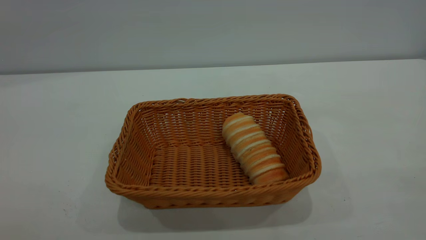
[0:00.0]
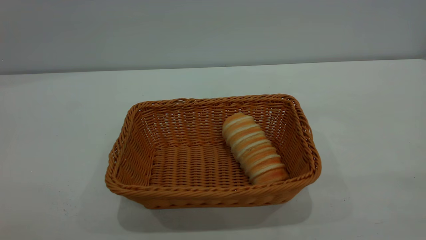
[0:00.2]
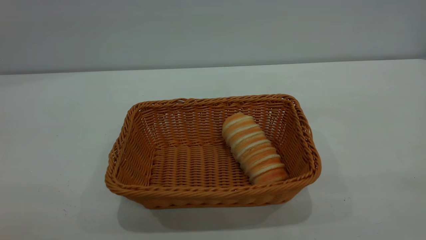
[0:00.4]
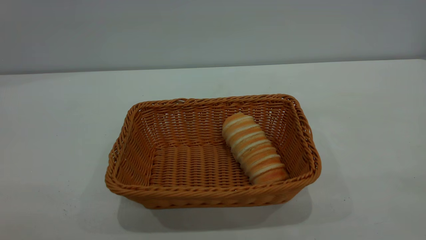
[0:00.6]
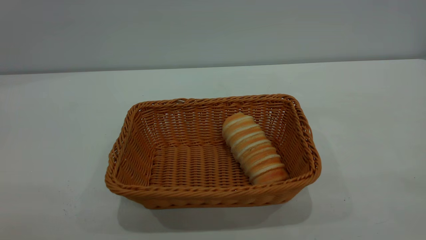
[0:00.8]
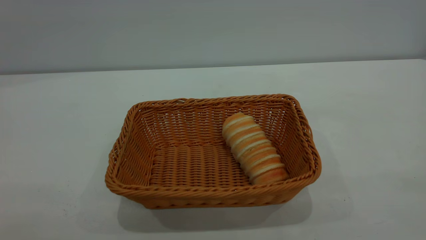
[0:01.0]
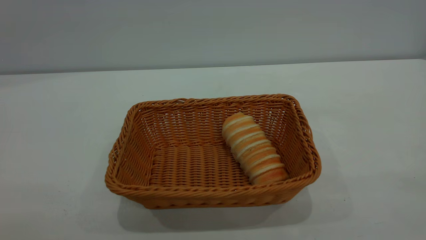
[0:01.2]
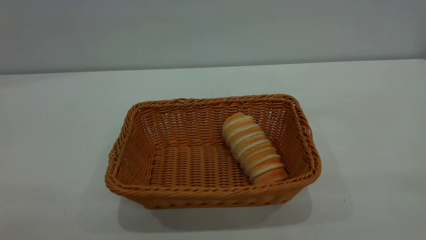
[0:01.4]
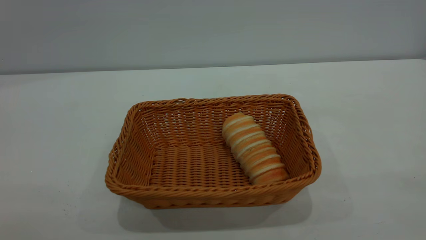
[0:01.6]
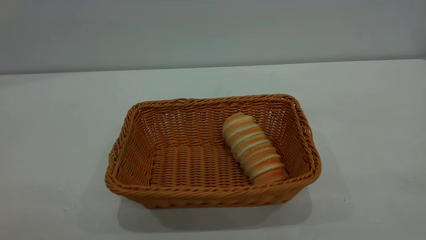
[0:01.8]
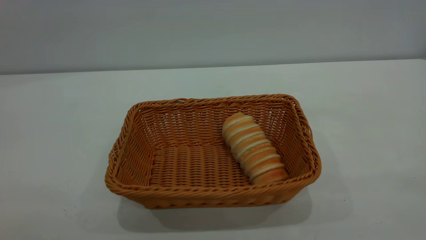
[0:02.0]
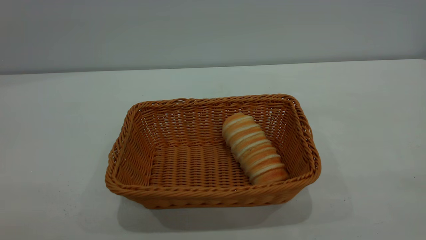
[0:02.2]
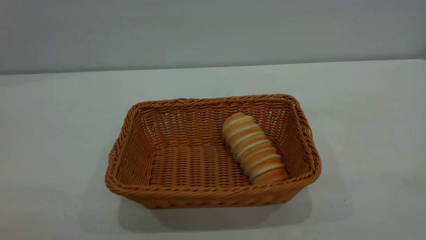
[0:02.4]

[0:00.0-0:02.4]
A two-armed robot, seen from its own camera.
Task of the whole recording: One hand grasps the yellow basket and places it in the middle of the table, while the other hand picks up the long bread and puts it into the yellow basket.
0:01.2 to 0:02.4: The two grippers keep their place.

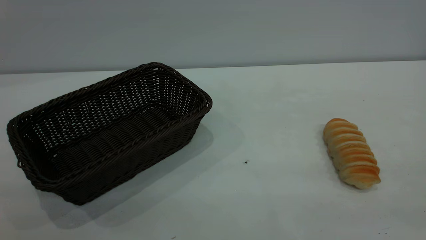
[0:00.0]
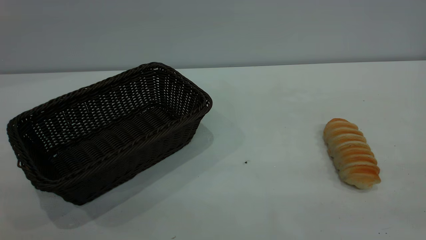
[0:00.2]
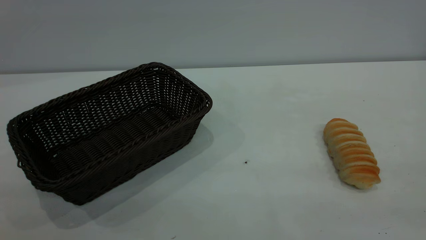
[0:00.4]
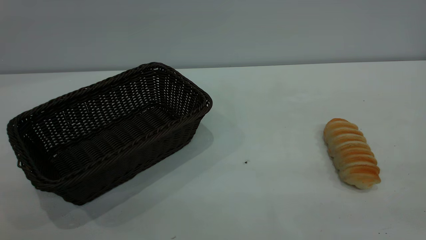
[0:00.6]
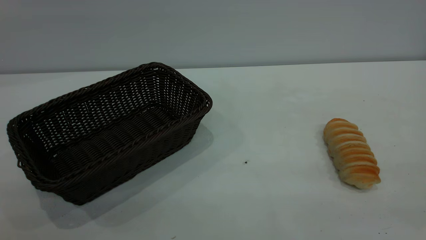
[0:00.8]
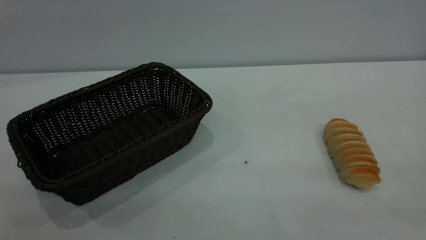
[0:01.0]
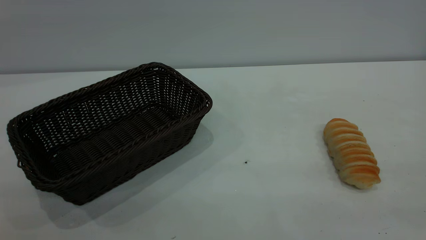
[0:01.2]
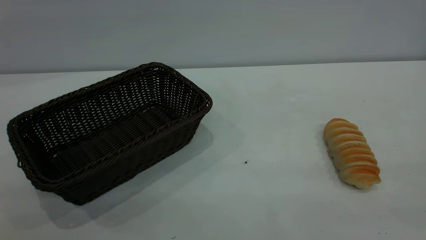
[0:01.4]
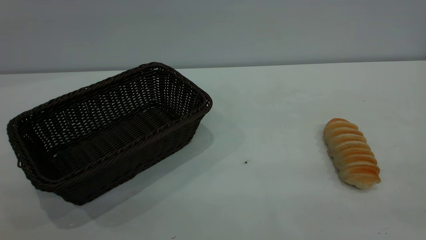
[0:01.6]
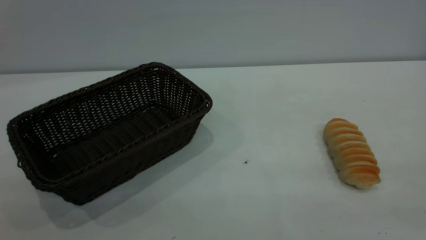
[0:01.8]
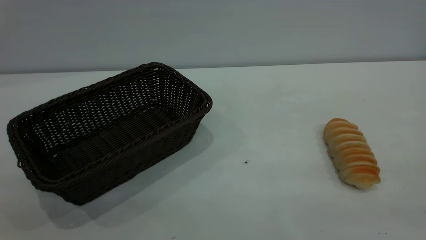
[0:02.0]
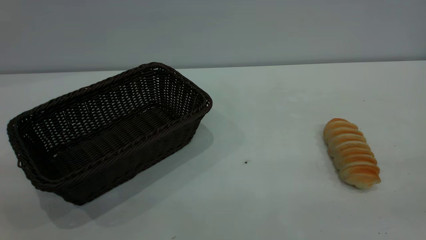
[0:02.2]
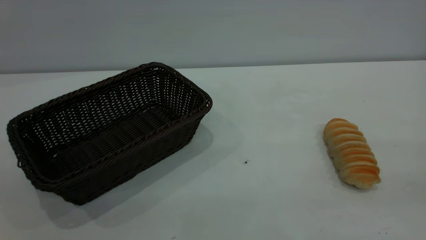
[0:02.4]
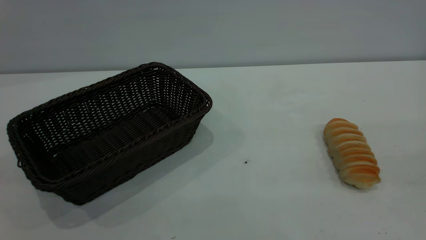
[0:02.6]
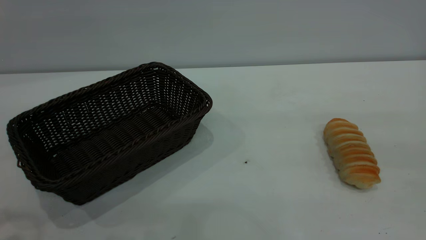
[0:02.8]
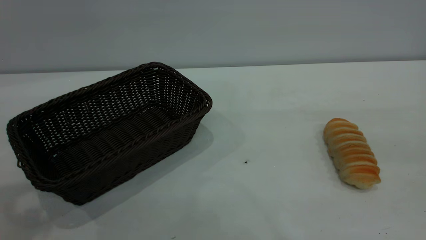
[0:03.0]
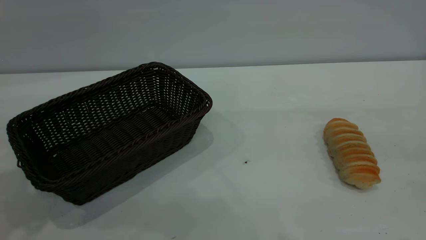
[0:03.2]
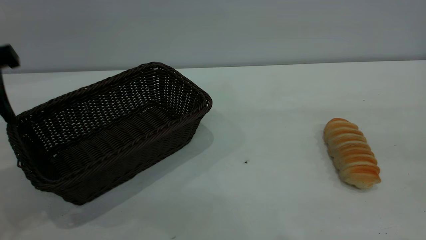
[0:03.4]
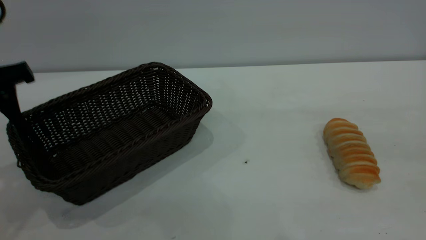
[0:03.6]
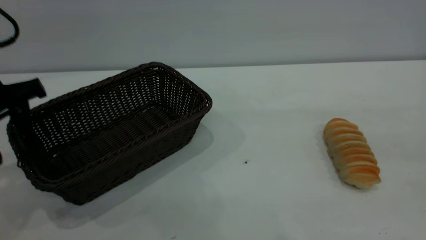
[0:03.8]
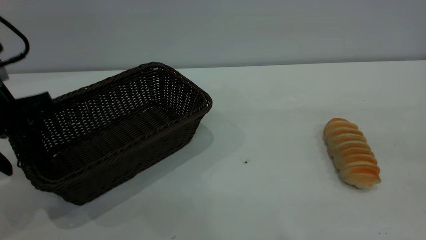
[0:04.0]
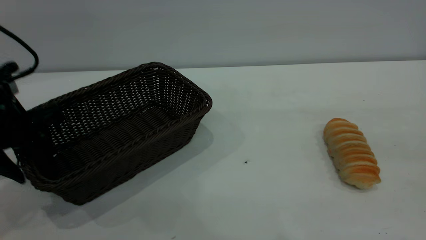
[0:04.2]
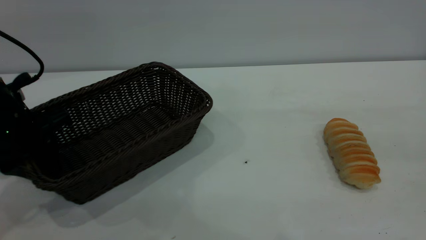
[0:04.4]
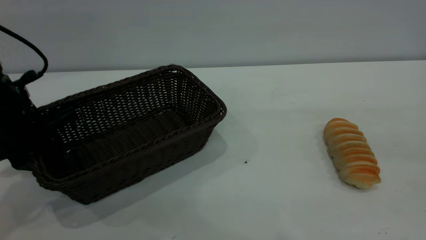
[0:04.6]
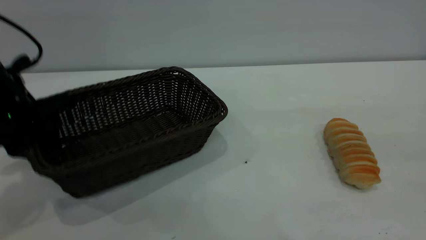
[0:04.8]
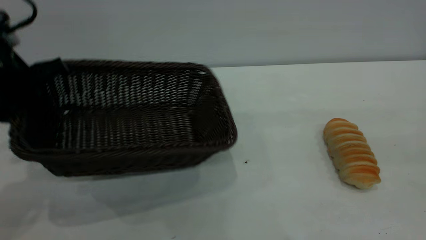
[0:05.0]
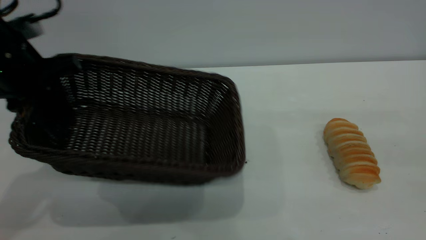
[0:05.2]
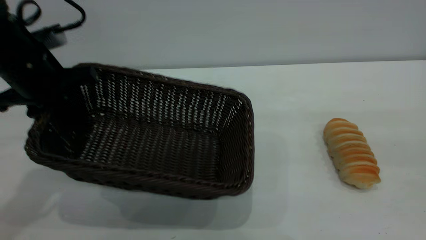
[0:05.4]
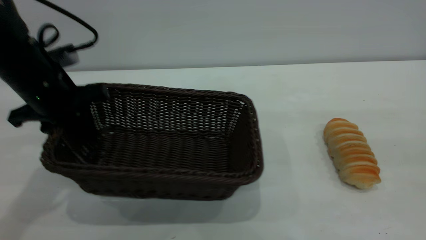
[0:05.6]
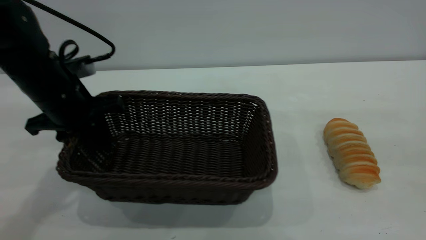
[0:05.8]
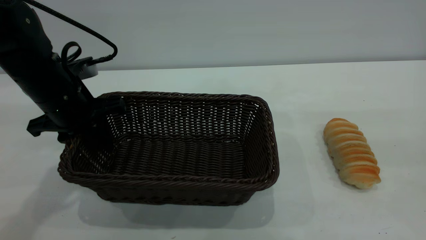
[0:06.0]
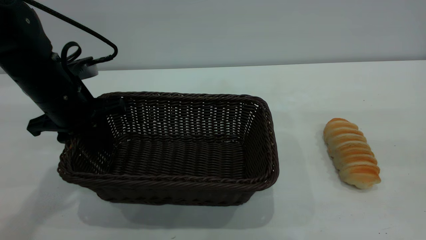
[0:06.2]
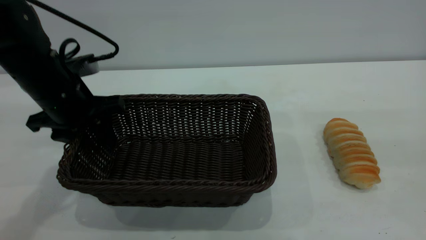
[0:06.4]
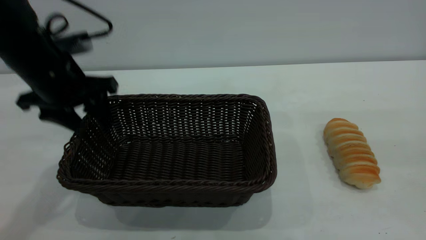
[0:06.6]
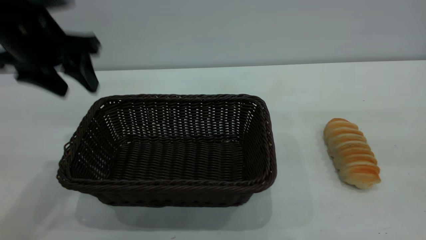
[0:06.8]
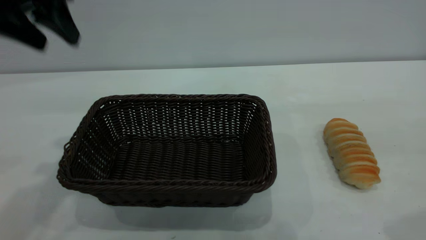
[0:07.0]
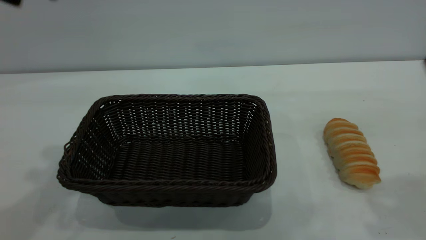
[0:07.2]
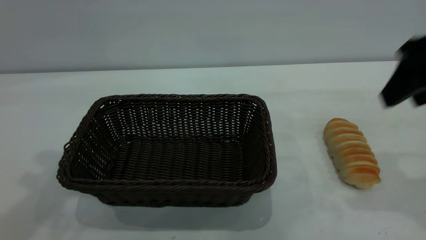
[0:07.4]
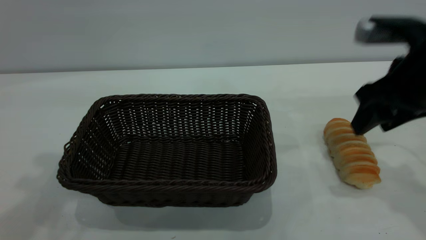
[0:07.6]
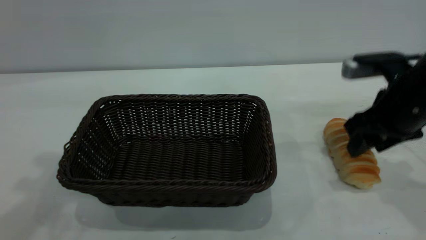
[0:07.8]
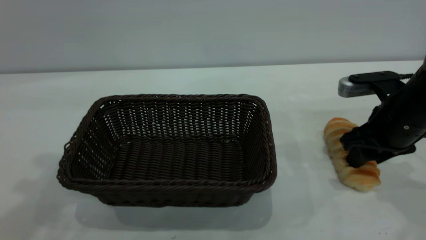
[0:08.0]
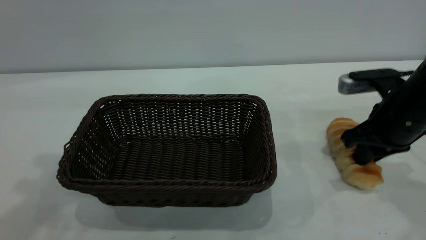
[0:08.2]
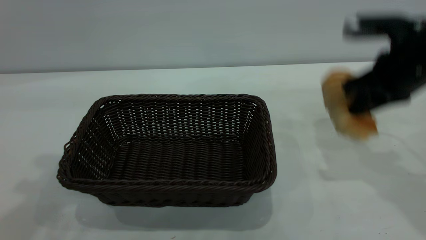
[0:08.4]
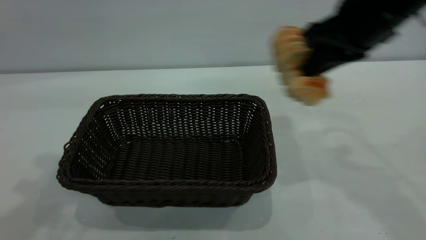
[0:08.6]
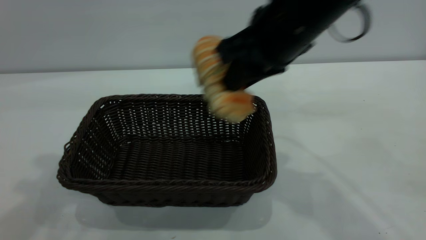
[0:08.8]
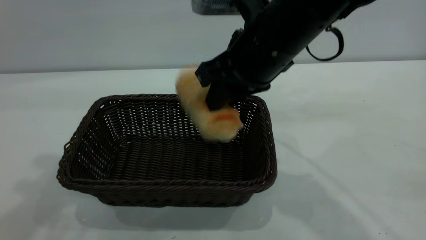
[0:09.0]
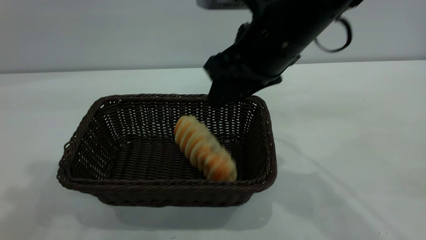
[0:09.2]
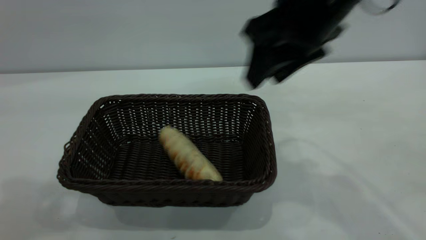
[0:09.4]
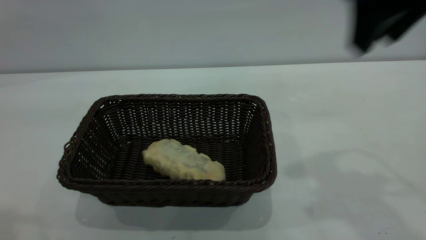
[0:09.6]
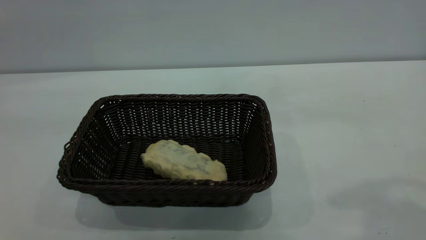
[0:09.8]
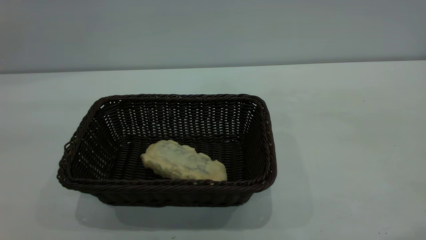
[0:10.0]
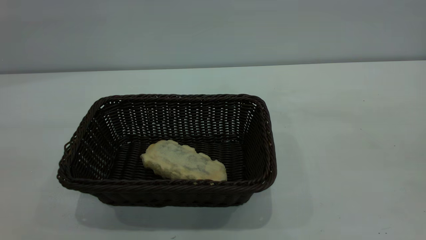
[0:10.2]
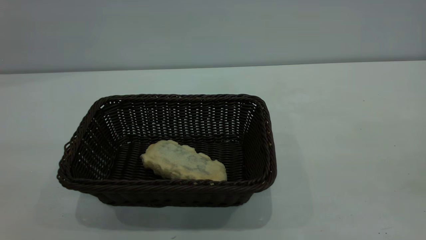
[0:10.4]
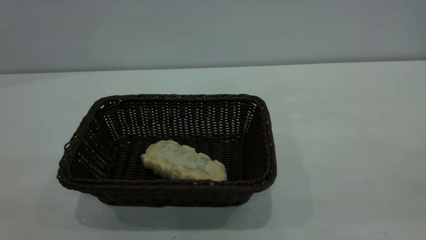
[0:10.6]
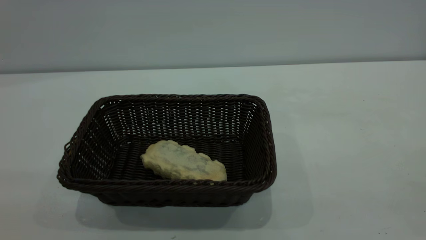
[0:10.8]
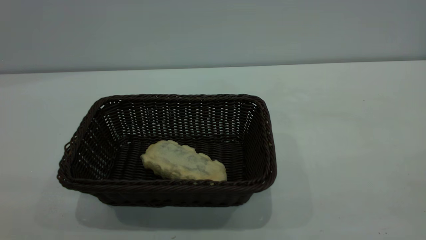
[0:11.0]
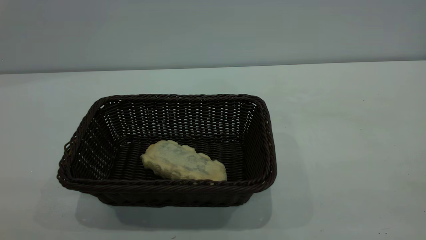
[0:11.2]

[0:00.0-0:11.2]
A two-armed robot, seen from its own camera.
Task of the whole recording: One hand grasps the black basket and places it in the middle of the table, while the other hand picks up the long bread and puts it into the black basket.
Step, 0:00.0 to 0:06.6: Move the basket to the center of view.
Step, 0:08.6 to 0:09.4: place the bread into the basket.
0:00.0 to 0:01.6: Both grippers stay about where they are.
0:03.2 to 0:04.8: The left gripper travels downward and forward by some 10 cm, and closes.
0:04.8 to 0:06.4: The left gripper travels to the right by approximately 5 cm, and opens up.
0:06.4 to 0:08.0: The left gripper moves upward, approximately 25 cm. The right gripper heads downward and forward, covering about 30 cm.
0:08.0 to 0:09.6: The left gripper is displaced backward and upward by approximately 10 cm. The right gripper goes about 25 cm upward, and closes and opens again.
0:09.6 to 0:11.2: The right gripper travels backward and to the right by roughly 30 cm.
